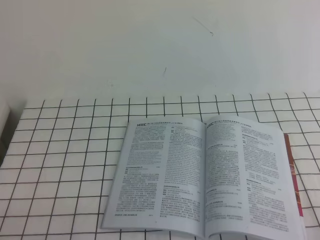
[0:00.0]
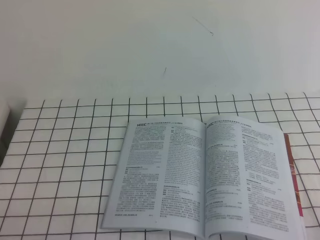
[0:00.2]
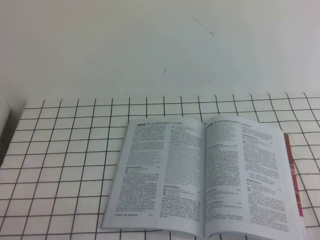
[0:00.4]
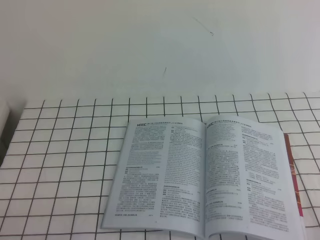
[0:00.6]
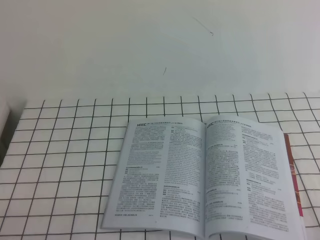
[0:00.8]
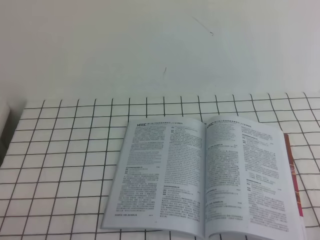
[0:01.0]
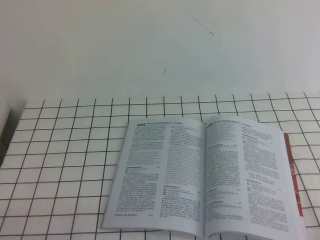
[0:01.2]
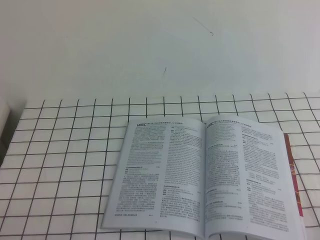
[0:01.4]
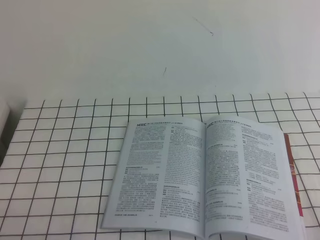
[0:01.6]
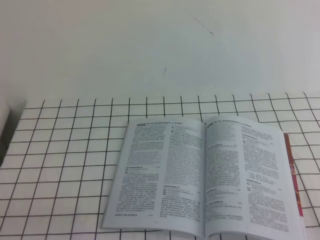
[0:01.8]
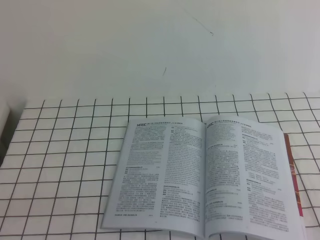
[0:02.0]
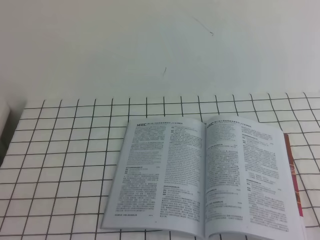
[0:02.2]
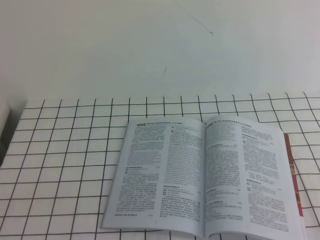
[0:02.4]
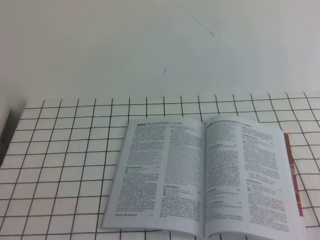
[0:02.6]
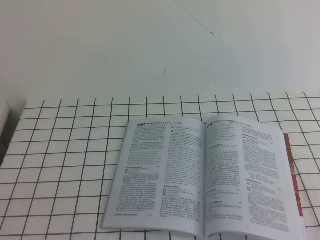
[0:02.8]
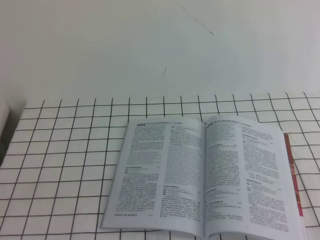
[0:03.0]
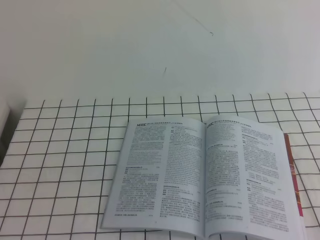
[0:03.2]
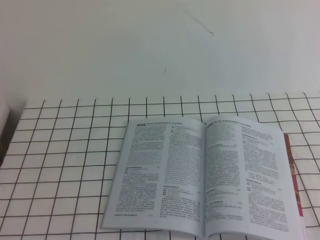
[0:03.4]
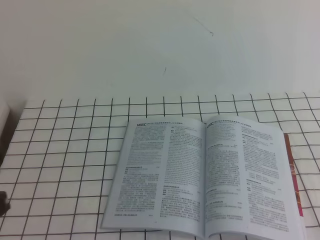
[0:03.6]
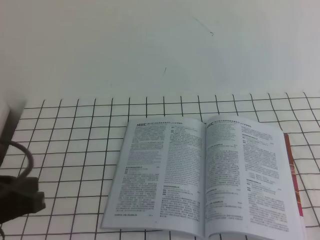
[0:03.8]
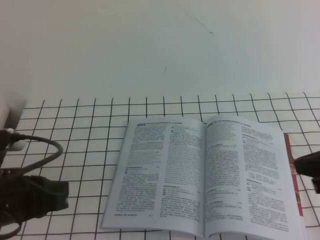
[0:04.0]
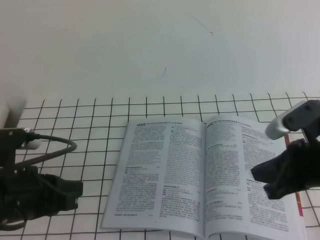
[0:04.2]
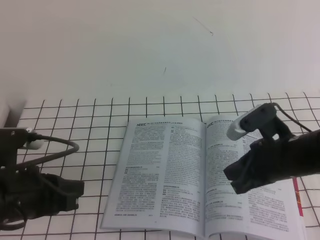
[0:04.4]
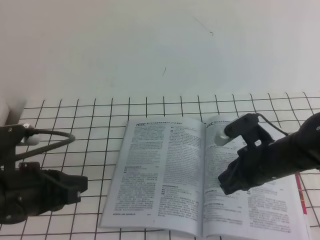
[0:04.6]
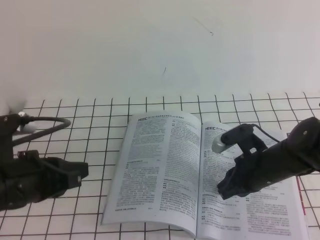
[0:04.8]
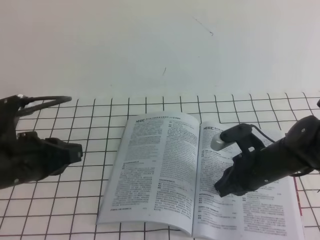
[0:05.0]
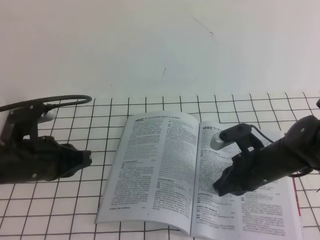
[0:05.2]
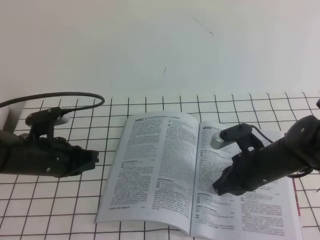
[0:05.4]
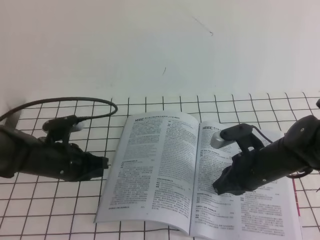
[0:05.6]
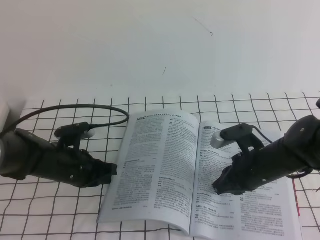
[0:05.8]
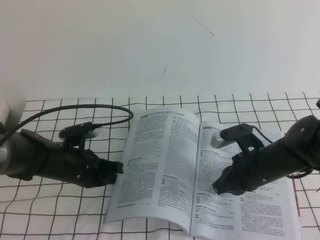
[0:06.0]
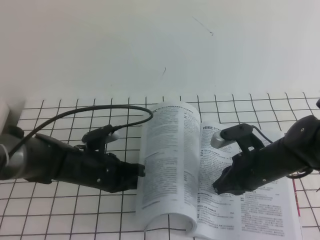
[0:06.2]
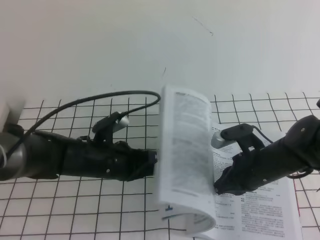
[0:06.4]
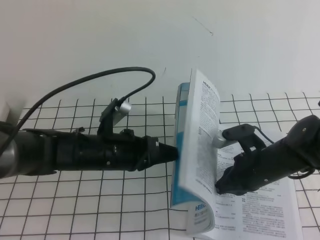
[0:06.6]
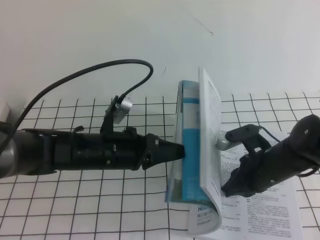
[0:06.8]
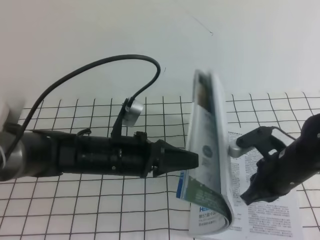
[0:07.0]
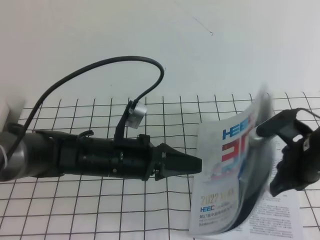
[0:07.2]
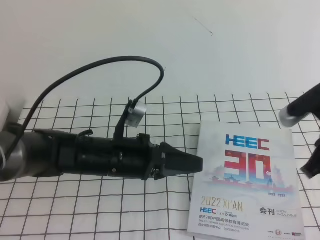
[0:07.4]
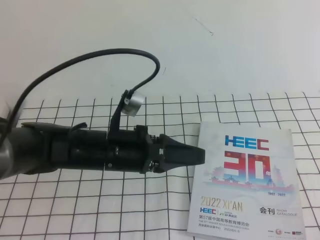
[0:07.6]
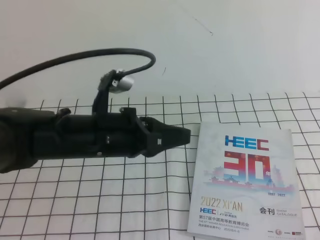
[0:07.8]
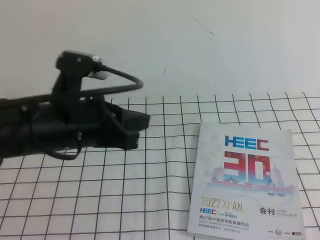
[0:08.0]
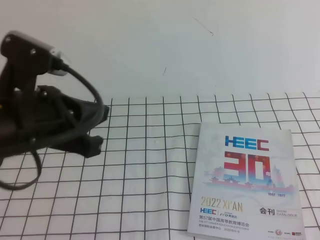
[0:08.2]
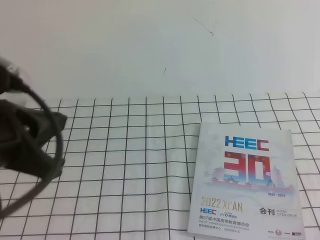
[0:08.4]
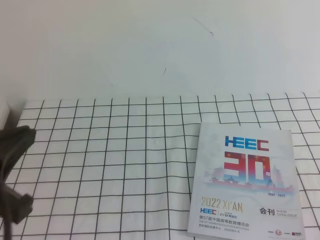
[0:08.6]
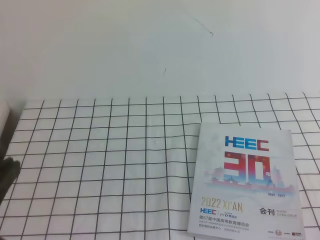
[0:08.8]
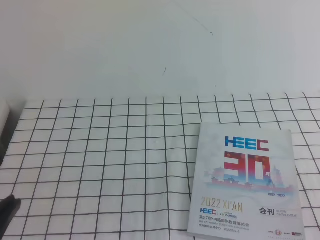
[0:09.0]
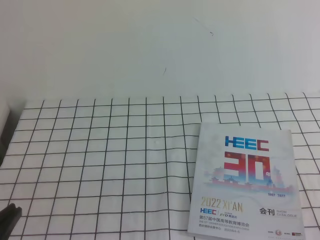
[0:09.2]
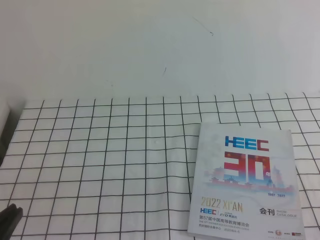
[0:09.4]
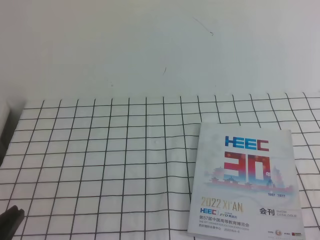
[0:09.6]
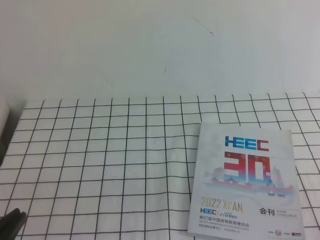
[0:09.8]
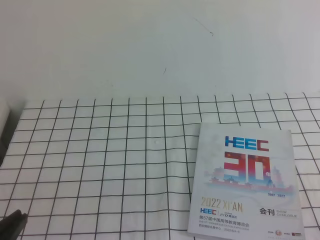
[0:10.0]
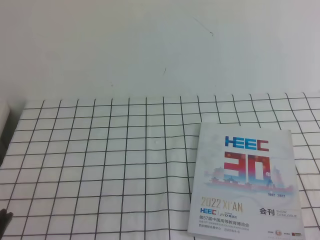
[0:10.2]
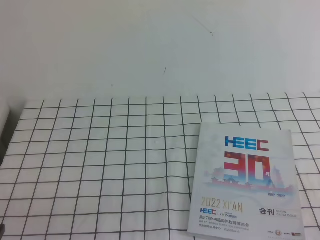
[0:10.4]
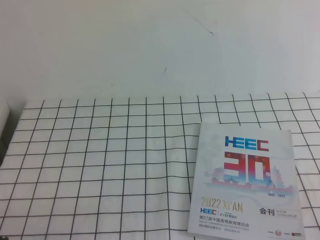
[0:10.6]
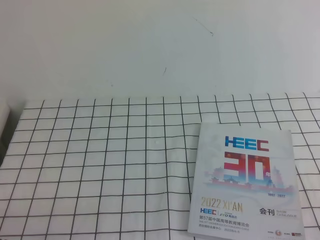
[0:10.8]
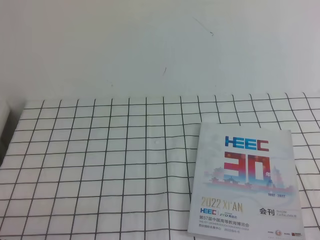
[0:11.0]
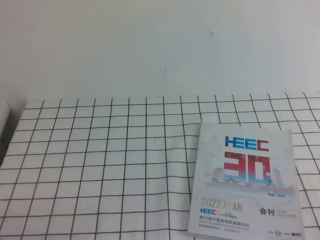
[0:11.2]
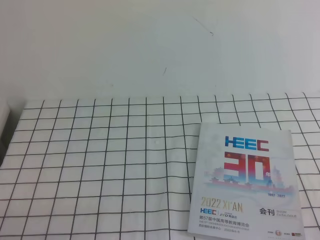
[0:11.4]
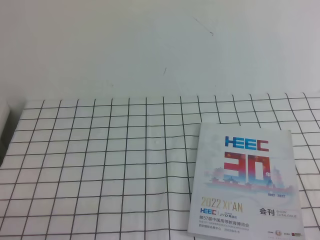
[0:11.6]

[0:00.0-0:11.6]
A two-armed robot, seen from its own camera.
Task of the whole recording: on the white tablecloth, hold the book with one hand and close it with the other.
0:00.0 to 0:01.4: Both grippers stay about where they are.
0:02.8 to 0:04.4: The right gripper goes about 25 cm forward and to the left. Meanwhile the left gripper is displaced forward by approximately 15 cm.
0:04.4 to 0:05.8: The right gripper shifts approximately 10 cm downward. The left gripper heads forward and downward, covering approximately 20 cm.
0:05.8 to 0:07.2: The left gripper goes roughly 15 cm to the right and upward, while the right gripper goes about 10 cm upward.
0:07.2 to 0:08.8: The right gripper shifts some 30 cm backward, to the right and upward; the left gripper moves backward, to the left and upward, approximately 25 cm, and opens and closes again.
0:08.8 to 0:10.2: The left gripper shifts about 10 cm downward.

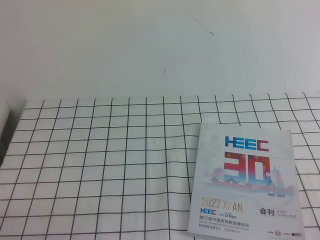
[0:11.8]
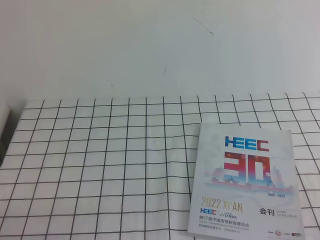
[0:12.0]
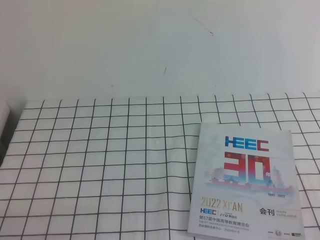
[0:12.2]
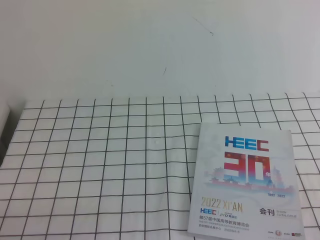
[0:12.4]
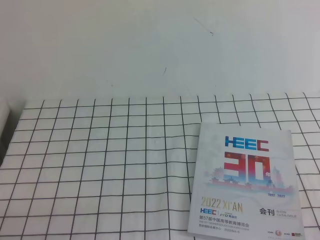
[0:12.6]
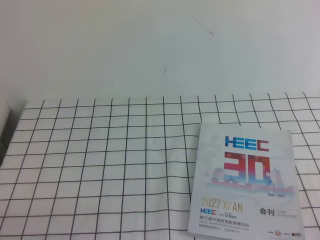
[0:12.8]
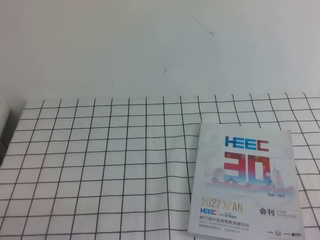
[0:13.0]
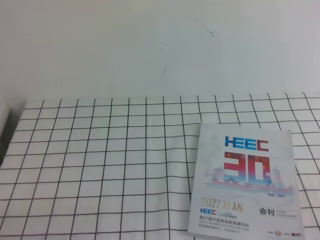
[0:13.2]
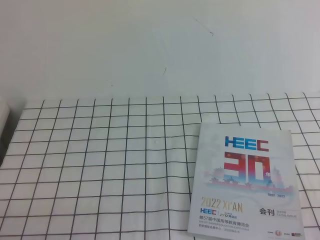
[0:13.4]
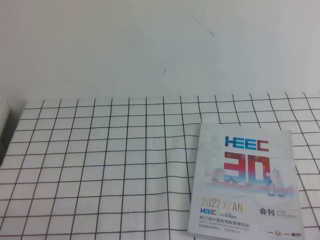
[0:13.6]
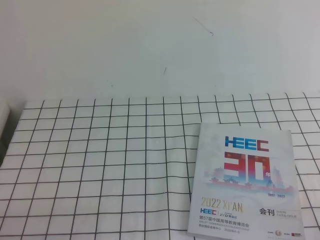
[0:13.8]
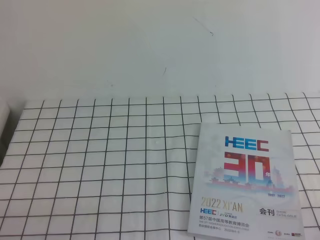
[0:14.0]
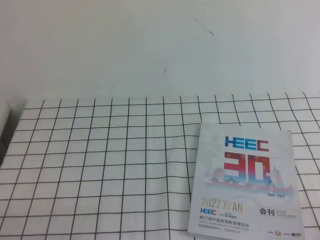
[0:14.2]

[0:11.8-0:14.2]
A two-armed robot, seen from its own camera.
Task of the whole recording: on the white tablecloth, hold the book with one hand and close it with the other.
0:11.8 to 0:13.0: Neither gripper changes place.
